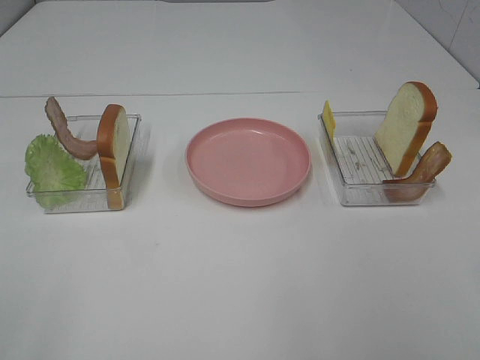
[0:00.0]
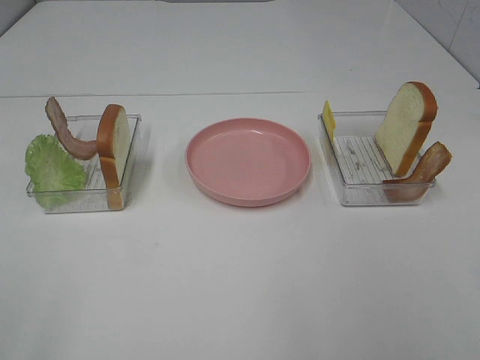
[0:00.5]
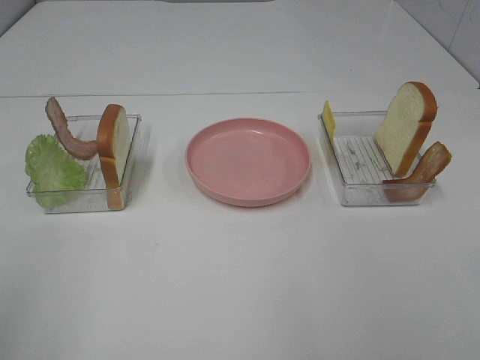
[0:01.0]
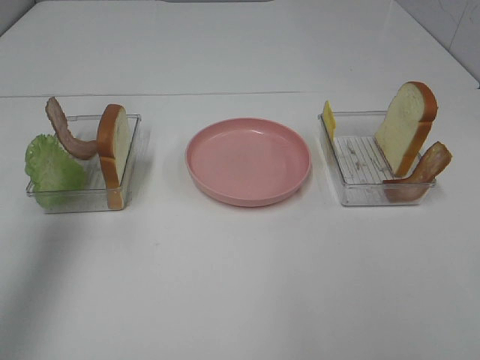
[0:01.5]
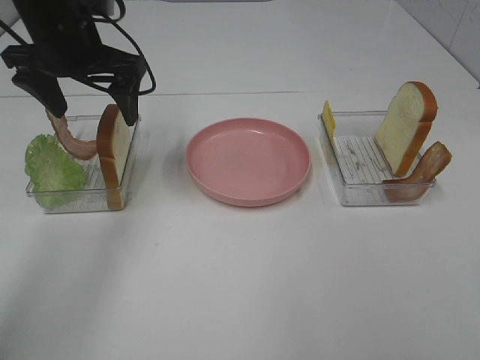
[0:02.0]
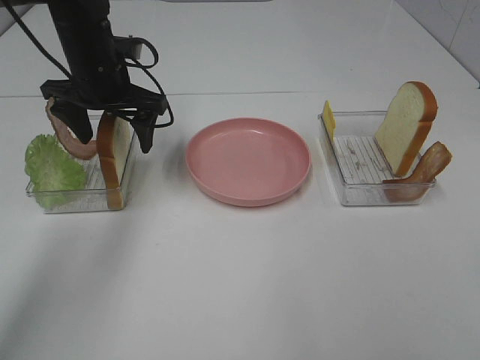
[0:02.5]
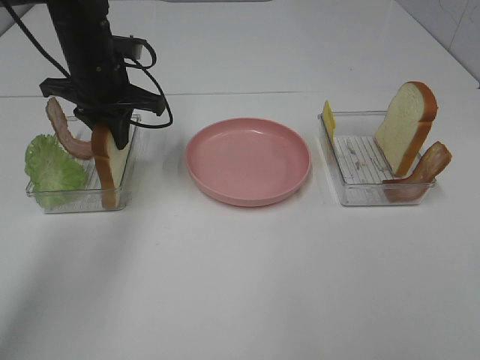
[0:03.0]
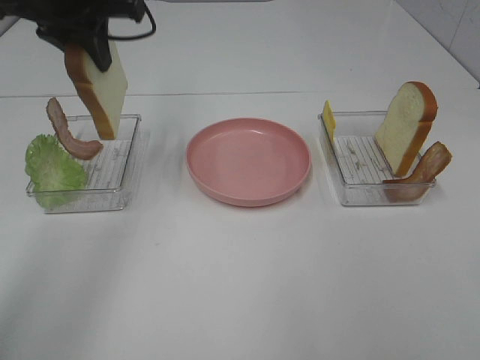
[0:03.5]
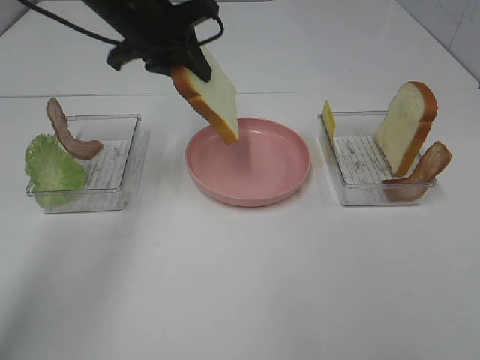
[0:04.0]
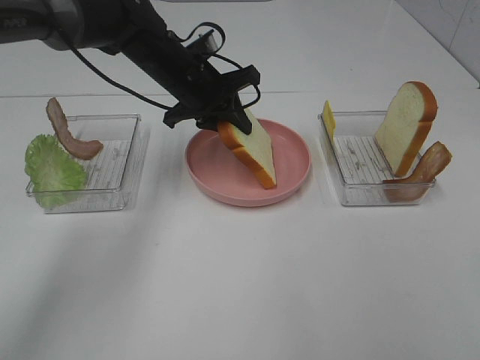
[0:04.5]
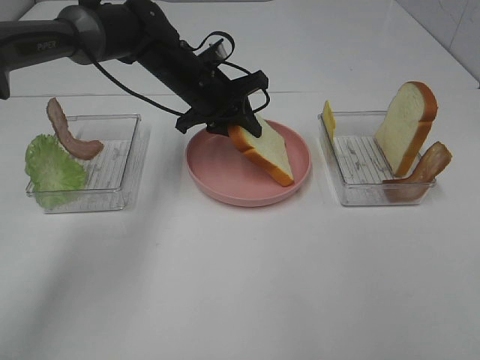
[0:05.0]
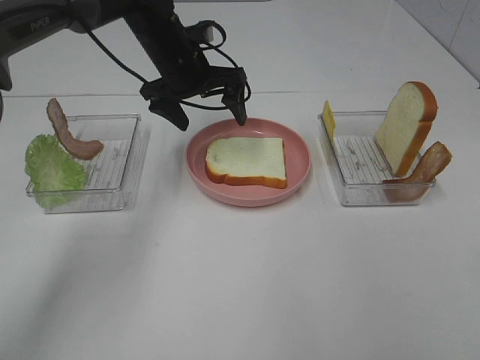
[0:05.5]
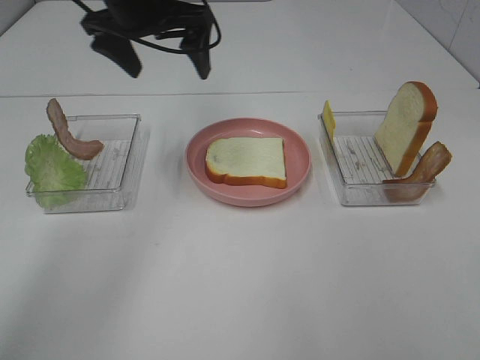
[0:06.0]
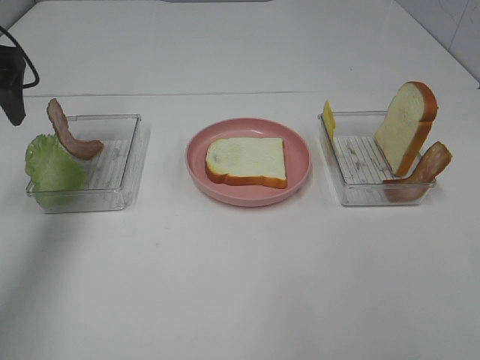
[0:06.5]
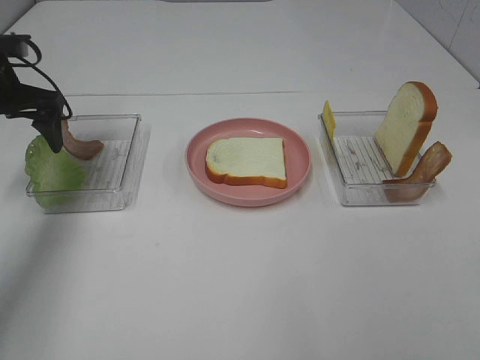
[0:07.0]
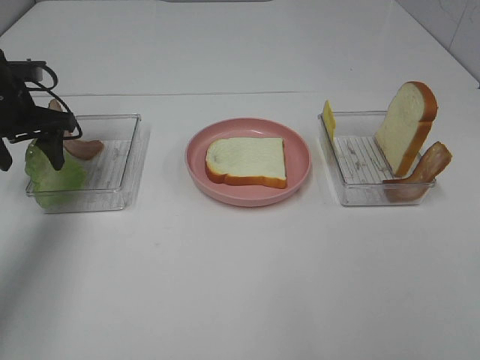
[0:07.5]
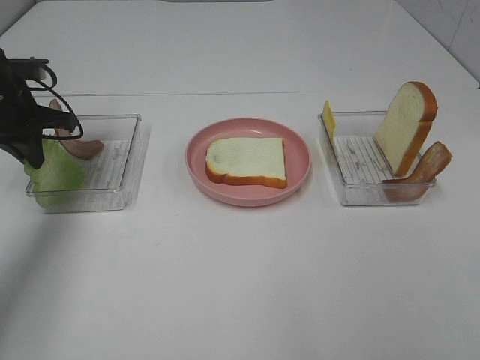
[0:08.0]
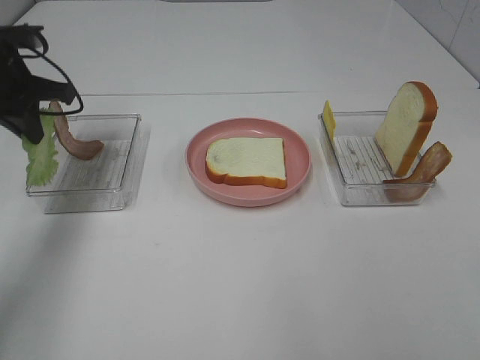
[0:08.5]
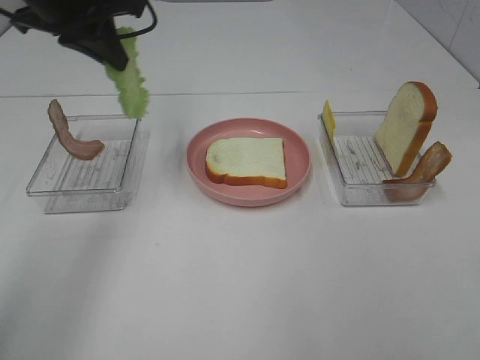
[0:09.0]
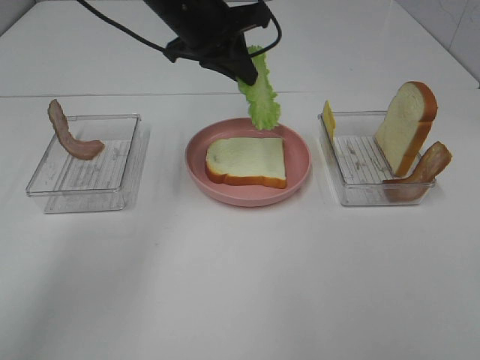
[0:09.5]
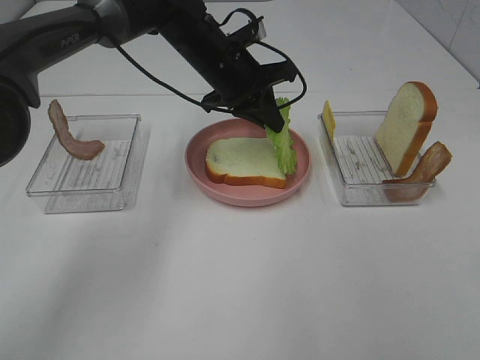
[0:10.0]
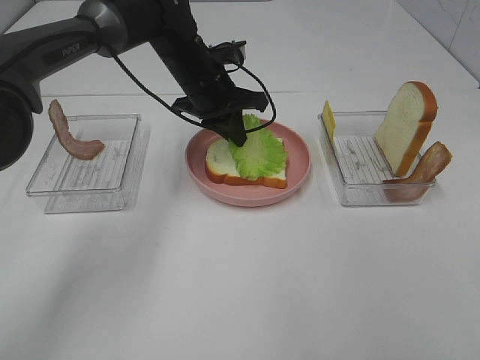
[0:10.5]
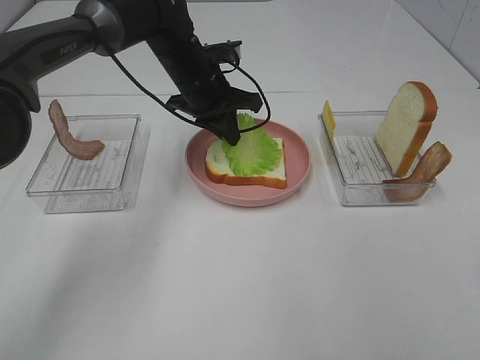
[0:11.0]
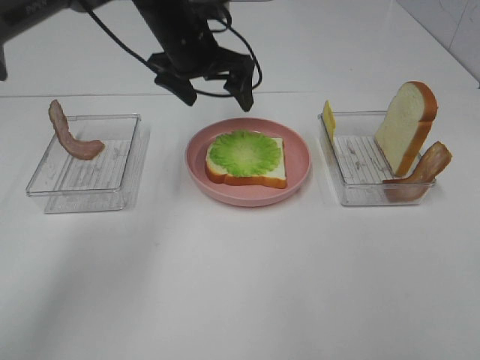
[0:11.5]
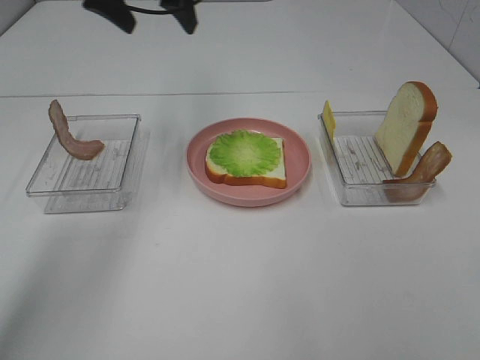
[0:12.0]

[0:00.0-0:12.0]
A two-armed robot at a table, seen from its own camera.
Task of the whole recording: Make sandwiches.
Step, 0.0 to 2.5 s: Left hand:grab the bread slice.
Step, 3.0 to 5.5 s: Left hand:place the bread slice on the plate.
Step, 6.0 to 8.5 s: Left hand:grab the lettuce slice.
Step, 9.0 to 11.5 s: Left hand:place the lettuce slice on the bread slice.
0.0 to 2.0 s: The left gripper goes about 40 cm forward.
2.0 to 4.0 s: The left gripper swings up and down, roughly 10 cm each way, with 2 reversals, and closes its fingers.
4.0 to 6.0 s: The left gripper travels downward and back again, some 10 cm each way, and opens its fingers.
6.0 to 8.0 s: The left gripper goes some 20 cm to the left and downward, and closes up.
8.0 to 10.0 s: The left gripper moves to the right, approximately 25 cm.
10.0 to 12.0 s: The left gripper travels to the left and upward by roughly 20 cm, and opens.

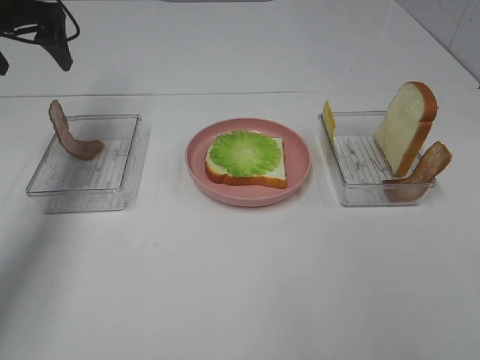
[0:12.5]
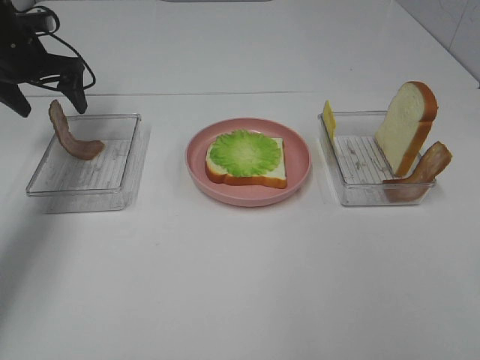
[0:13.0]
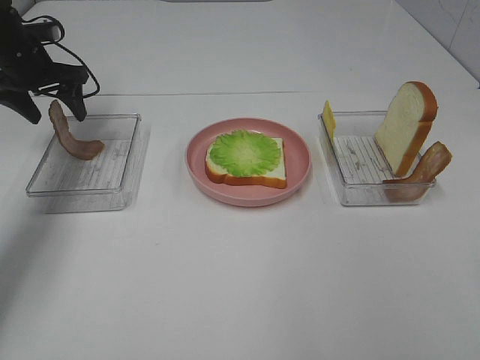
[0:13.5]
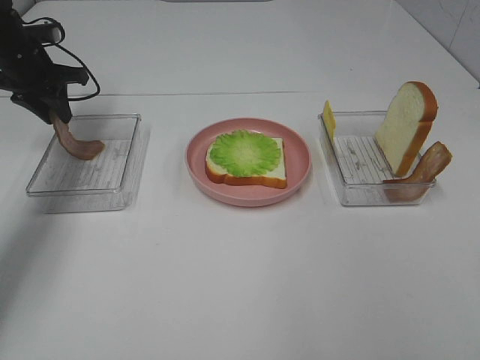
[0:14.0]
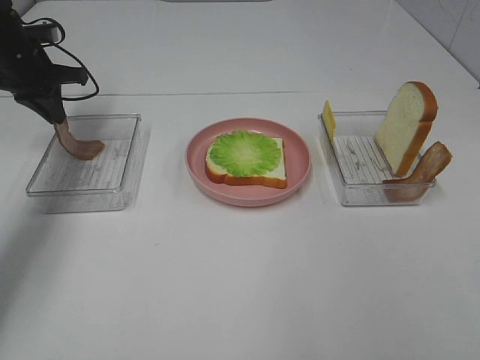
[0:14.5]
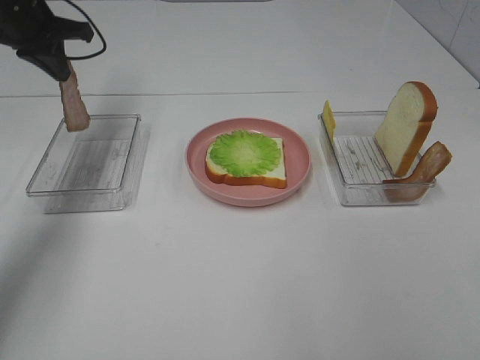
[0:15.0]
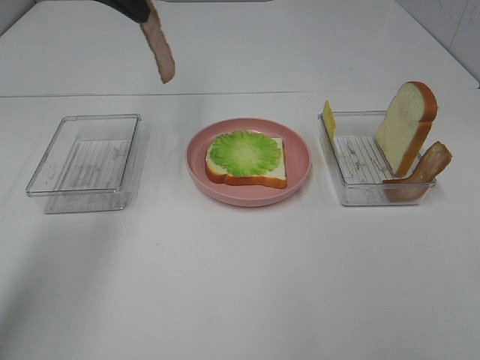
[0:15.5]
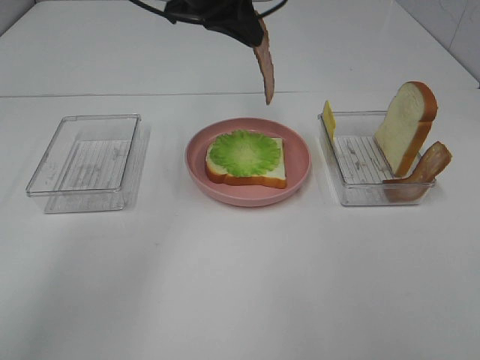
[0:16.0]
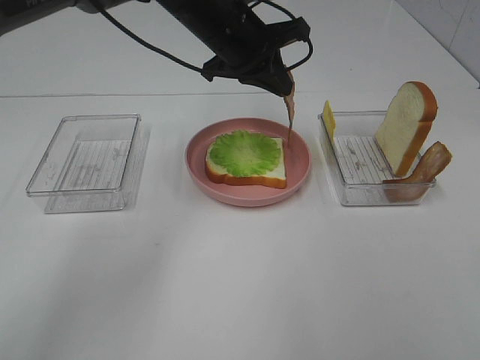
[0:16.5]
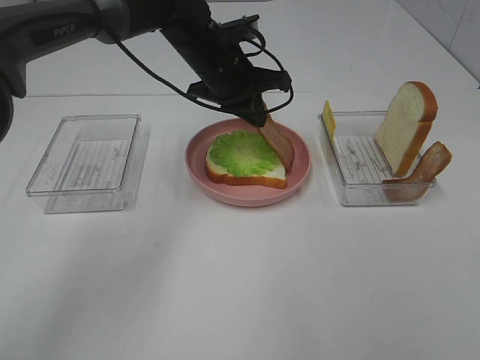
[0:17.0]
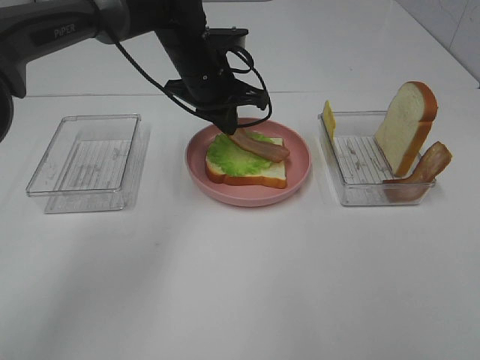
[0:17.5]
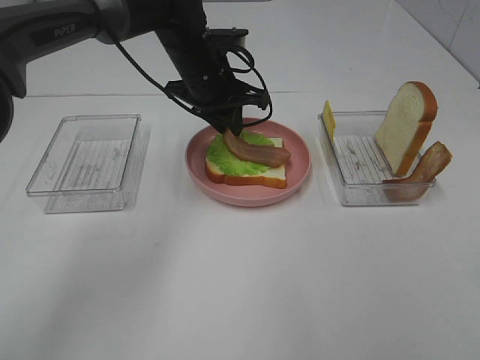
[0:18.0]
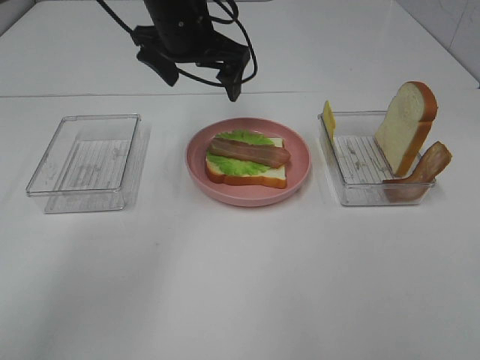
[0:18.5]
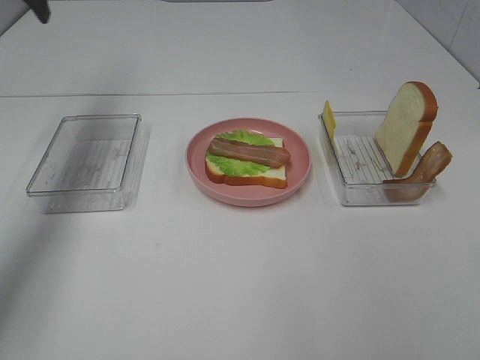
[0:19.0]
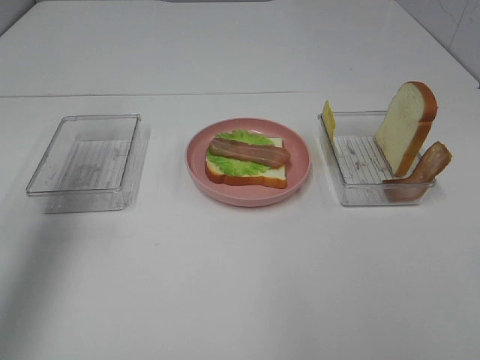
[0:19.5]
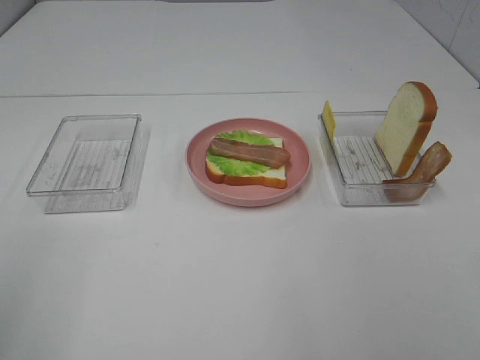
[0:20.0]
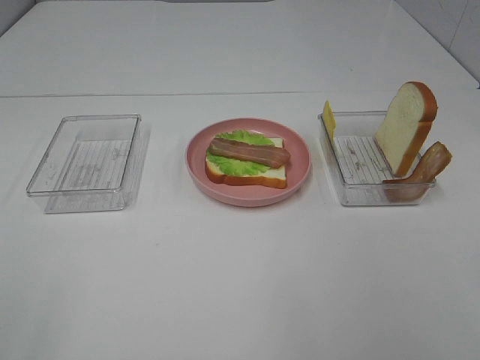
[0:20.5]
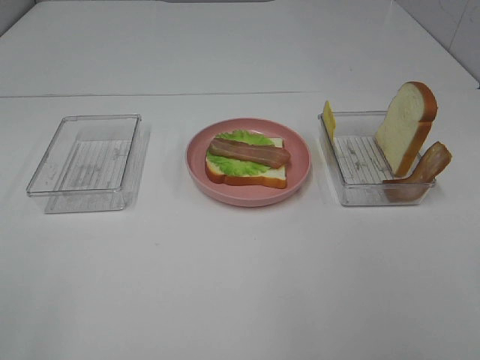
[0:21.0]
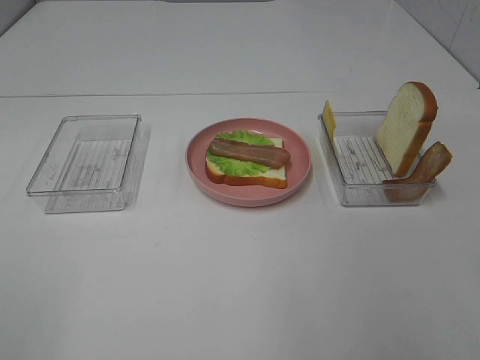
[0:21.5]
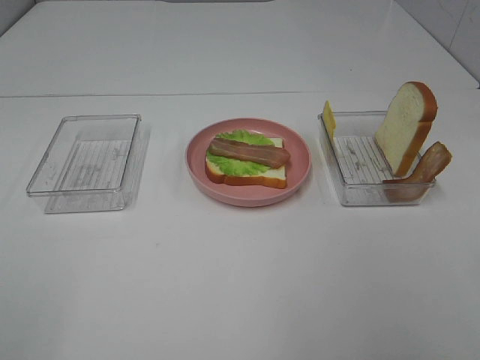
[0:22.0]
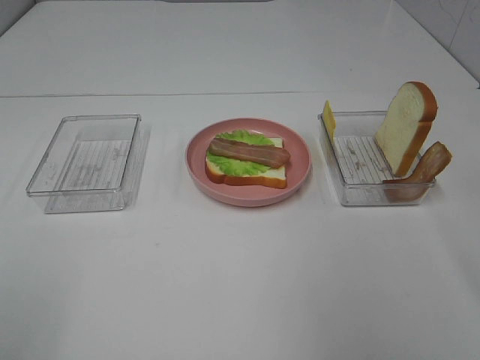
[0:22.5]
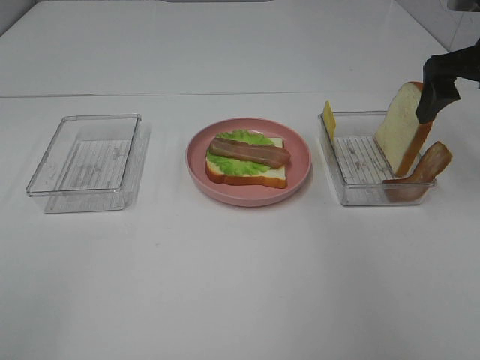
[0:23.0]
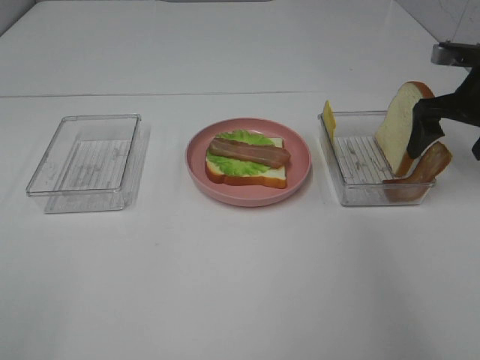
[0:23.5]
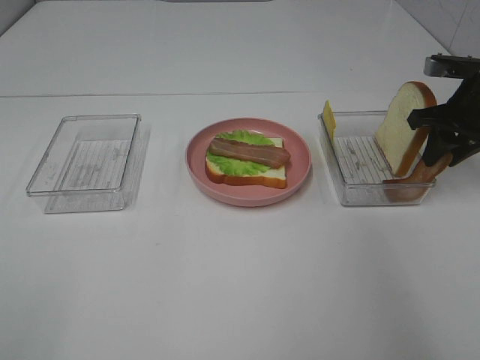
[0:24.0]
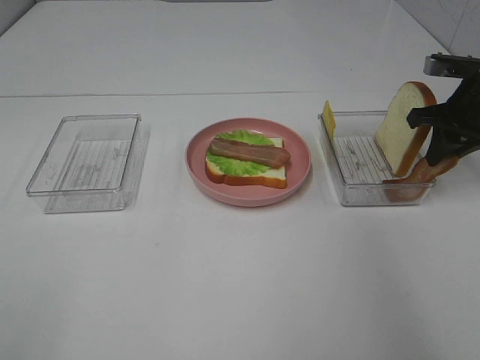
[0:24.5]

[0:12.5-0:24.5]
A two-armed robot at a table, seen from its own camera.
Task of the whole recording: Make sandwiches.
Step, 12.5 to 14.5 s: Left hand:grab the bacon.
Step, 15.0 to 18.0 s: Left hand:place bacon on lettuce slice.
12.5 to 14.5 s: The left gripper goes about 10 cm downward, and closes.
14.5 to 16.5 s: The left gripper travels to the right by about 30 cm.
16.5 to 18.5 s: The left gripper shifts some 5 cm to the left, and opens its fingers.
18.5 to 20.5 s: The left gripper heads backward and to the left, covering approximately 50 cm.
22.5 to 24.5 s: The right gripper heads forward and downward, covering roughly 25 cm, and closes its fingers.

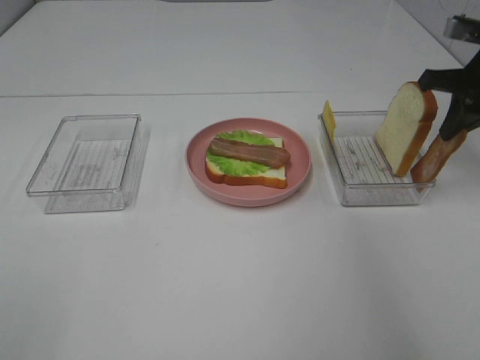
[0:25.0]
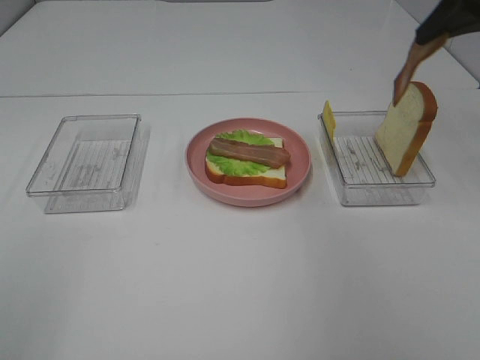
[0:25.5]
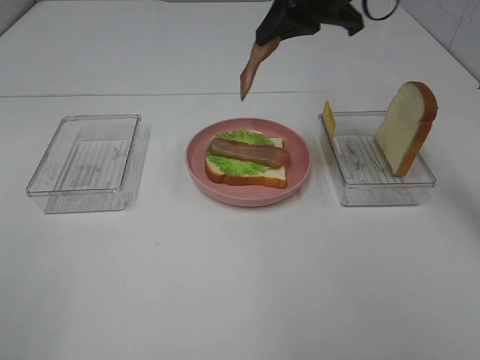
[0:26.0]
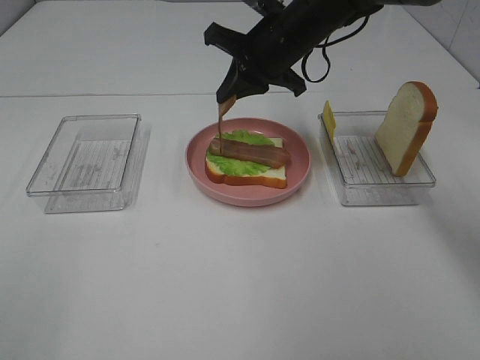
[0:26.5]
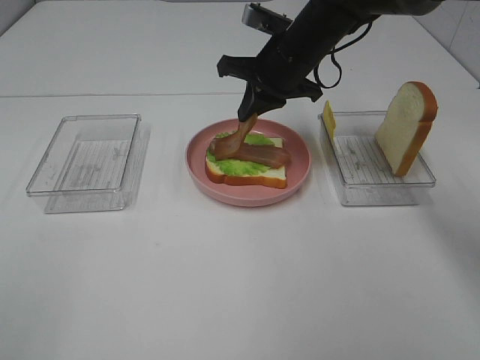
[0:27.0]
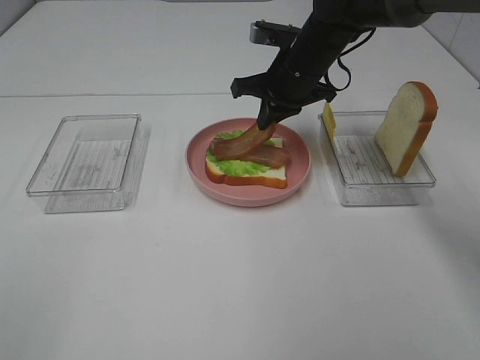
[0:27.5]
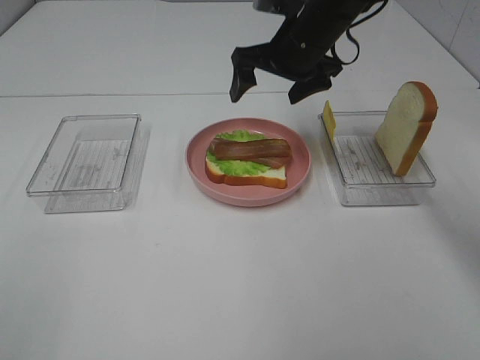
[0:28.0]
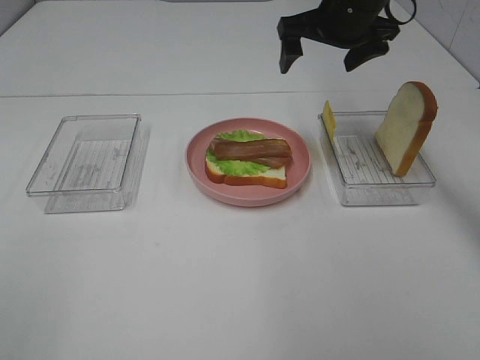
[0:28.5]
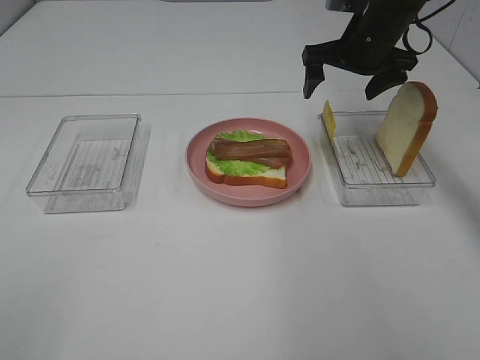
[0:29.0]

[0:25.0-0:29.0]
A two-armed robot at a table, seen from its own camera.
Task of the whole recording: Make sandwiches.
Step, 25.0 to 27.5 s: Right hand:place bacon on bacon.
25.0 to 27.0 s: The right gripper shifts some 25 cm to the left.
27.0 to 29.0 s: The right gripper moves to the right, some 10 cm, and opens its fingers.
